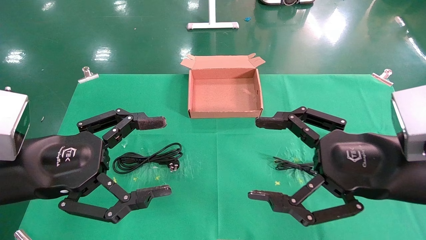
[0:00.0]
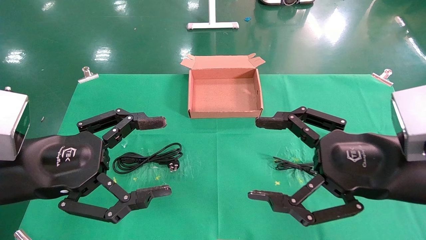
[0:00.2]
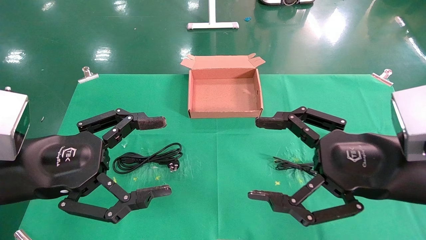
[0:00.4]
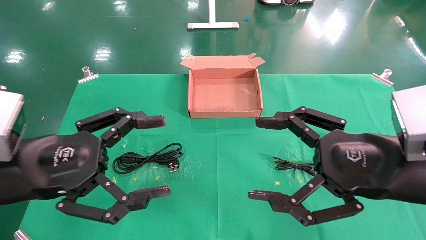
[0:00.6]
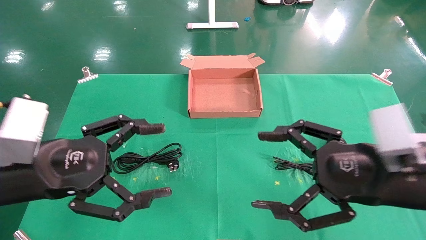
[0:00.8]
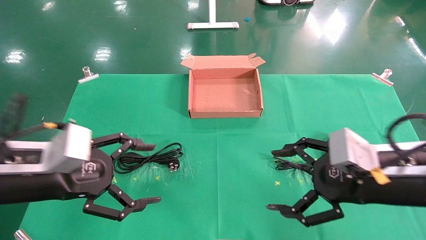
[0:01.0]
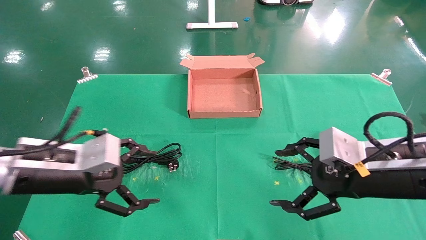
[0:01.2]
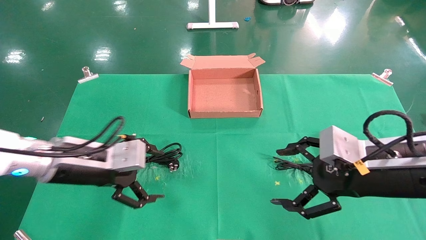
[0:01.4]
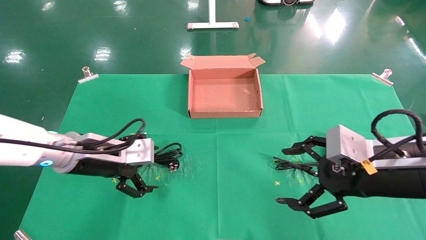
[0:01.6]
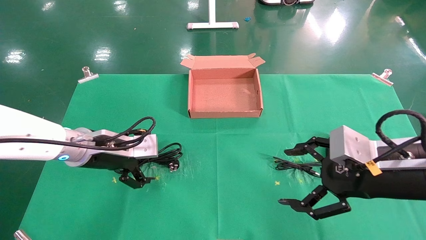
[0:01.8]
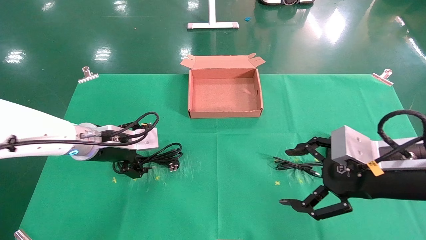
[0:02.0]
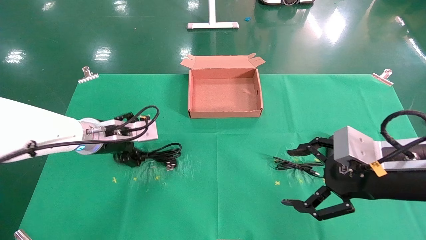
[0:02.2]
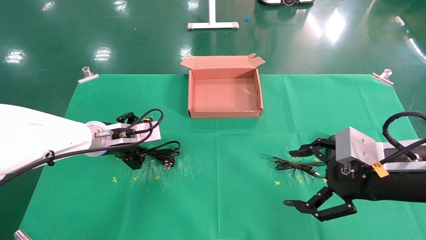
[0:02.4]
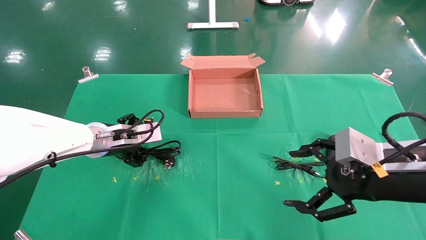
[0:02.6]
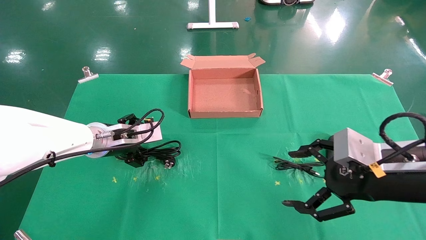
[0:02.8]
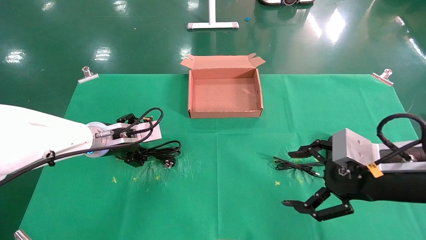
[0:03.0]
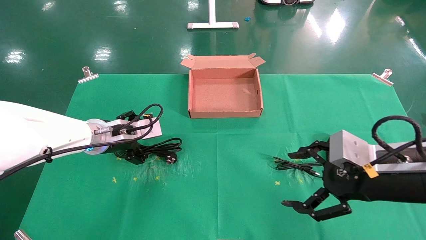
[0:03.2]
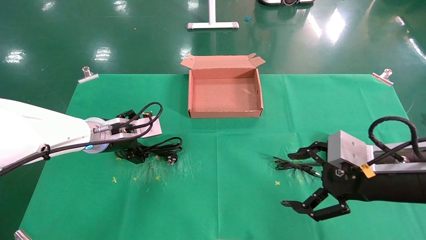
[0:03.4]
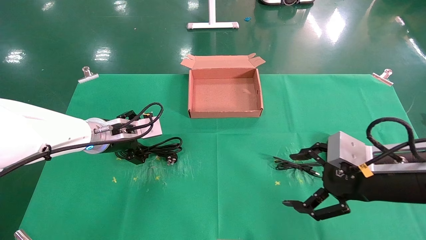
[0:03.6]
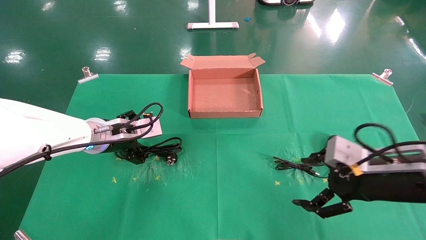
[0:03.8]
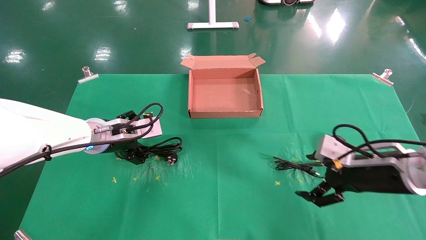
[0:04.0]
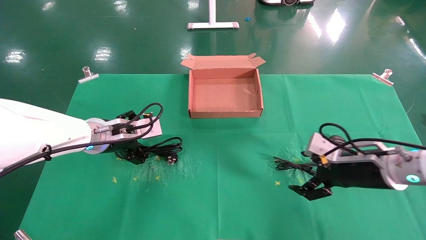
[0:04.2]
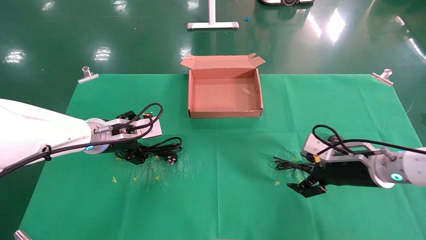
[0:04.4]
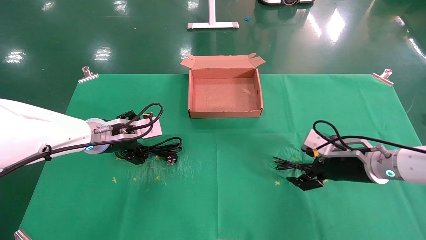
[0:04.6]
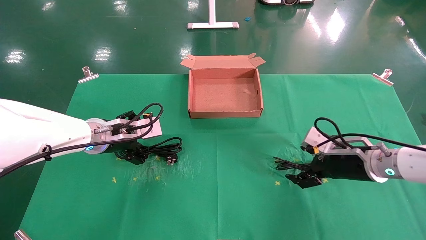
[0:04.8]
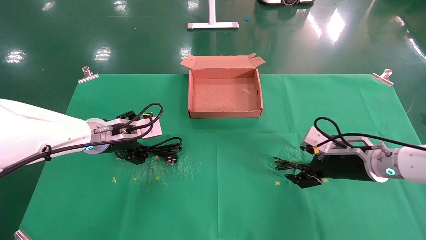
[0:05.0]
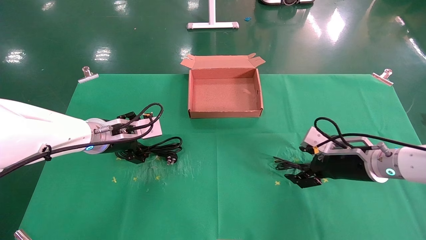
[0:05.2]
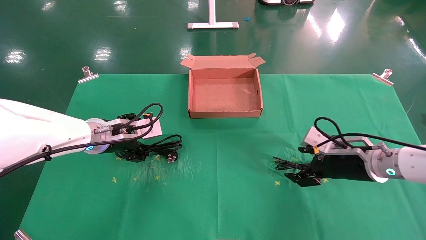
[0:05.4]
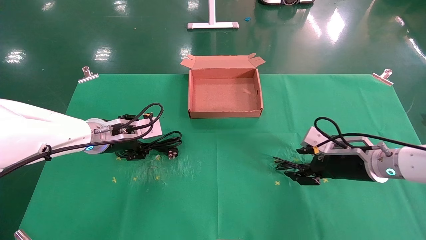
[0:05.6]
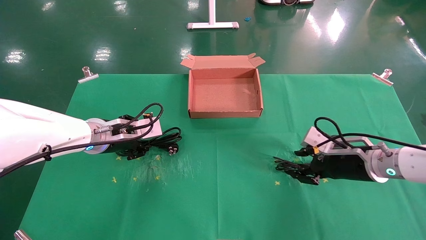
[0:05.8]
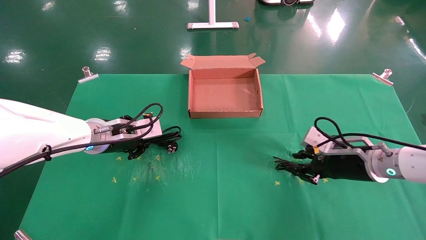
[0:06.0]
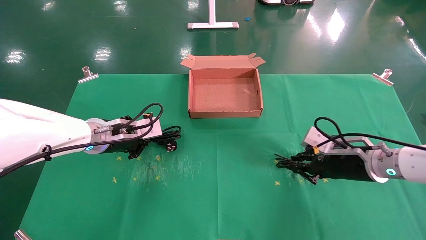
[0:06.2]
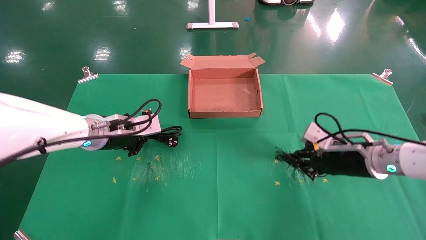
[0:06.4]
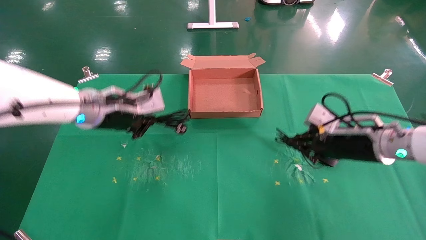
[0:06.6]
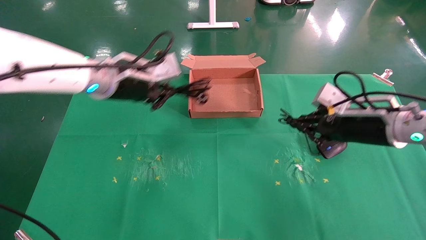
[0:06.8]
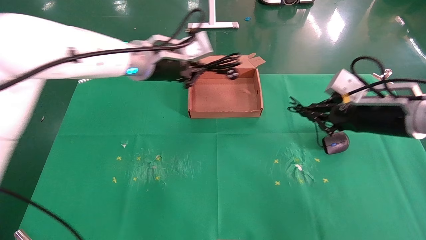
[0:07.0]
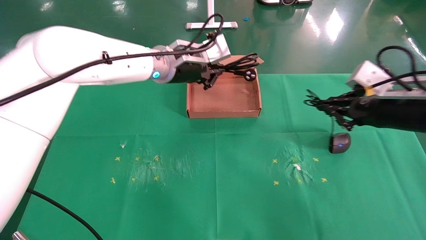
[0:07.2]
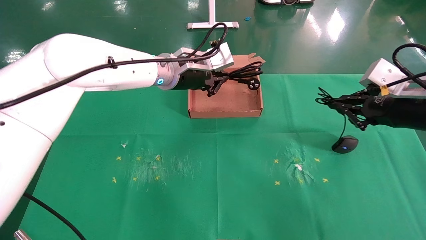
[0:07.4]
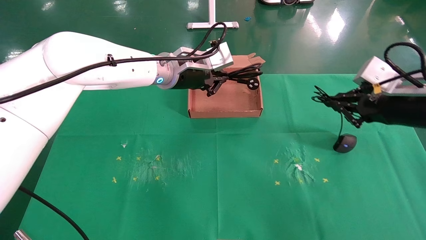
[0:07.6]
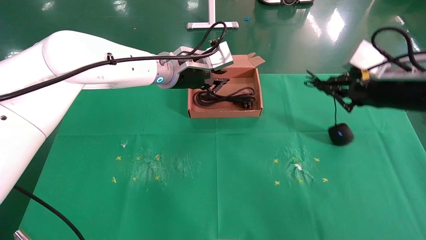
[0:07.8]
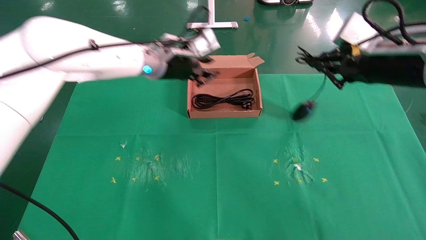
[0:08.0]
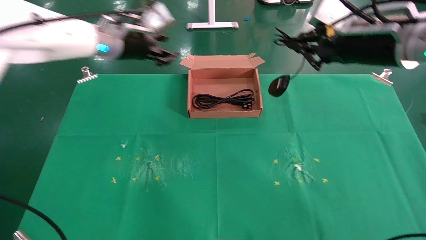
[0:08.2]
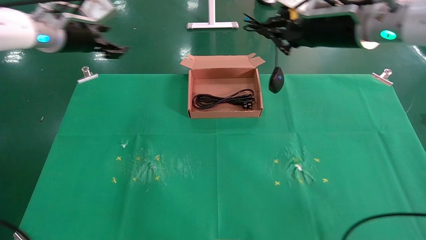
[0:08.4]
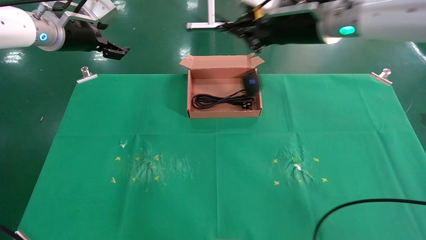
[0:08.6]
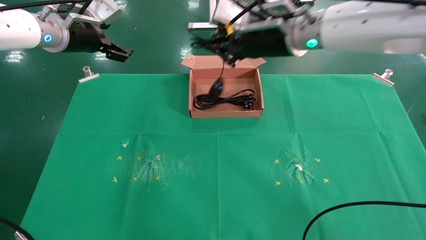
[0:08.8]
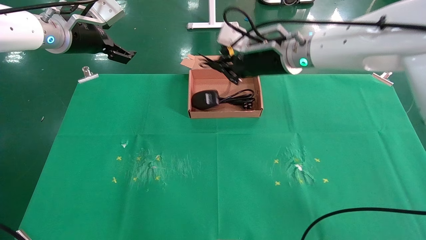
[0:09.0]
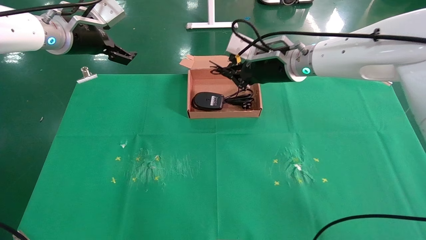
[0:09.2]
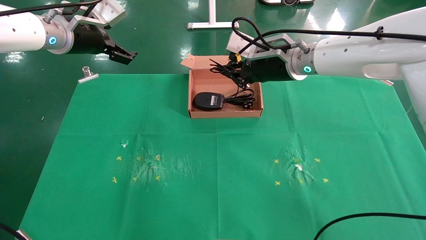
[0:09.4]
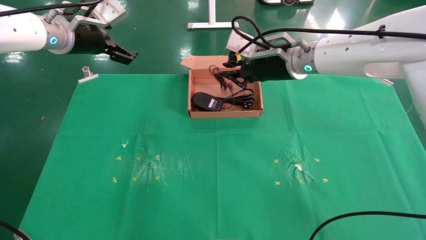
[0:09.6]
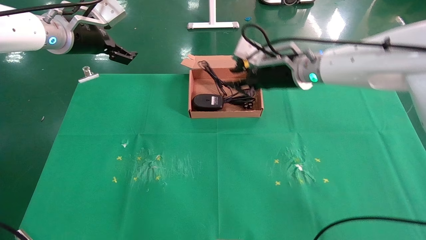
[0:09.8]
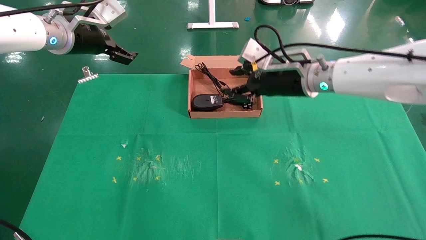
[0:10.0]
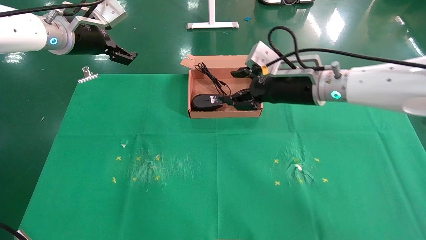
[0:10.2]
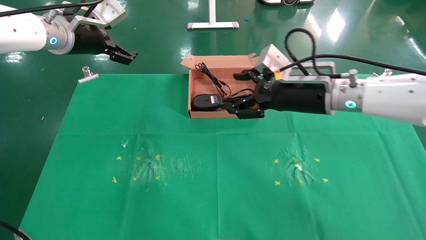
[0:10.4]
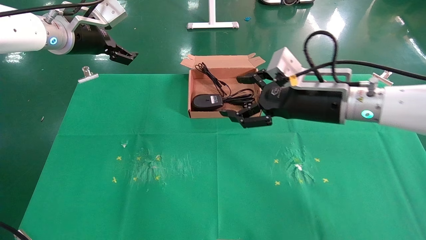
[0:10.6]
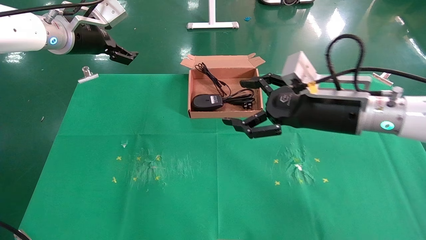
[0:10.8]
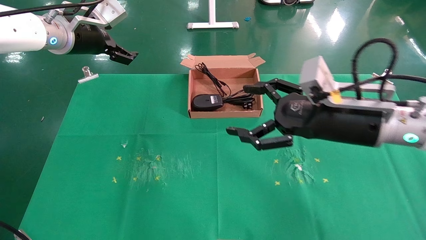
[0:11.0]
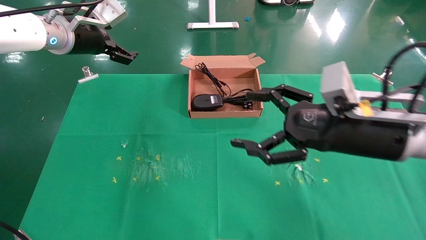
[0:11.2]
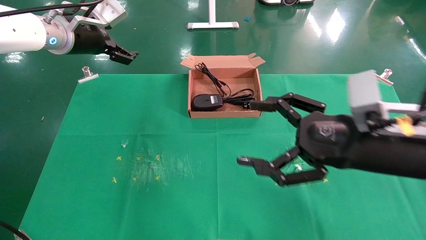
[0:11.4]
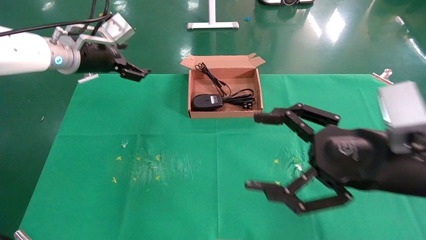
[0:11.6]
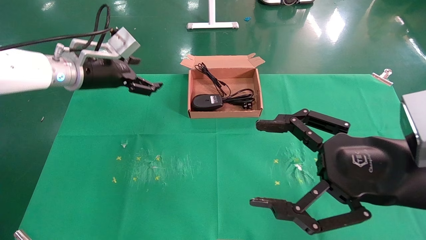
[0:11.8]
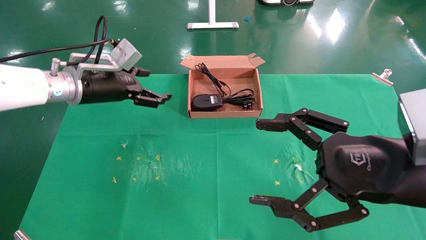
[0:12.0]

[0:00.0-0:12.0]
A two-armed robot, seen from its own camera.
Task of the whole recording: grasp data cable left put into box grasp mouse right put into box.
Step, 0:01.0 to 0:06.2: Simultaneously pick up the mouse and power cord from the accessory packaging area.
Step, 0:06.4 to 0:09.4: Place the mouse and power cord into the box.
0:00.0 to 0:01.6: The right gripper changes place by about 5 cm. Meanwhile the left gripper is displaced forward by roughly 15 cm.
0:01.6 to 0:03.0: The left gripper is displaced forward by roughly 5 cm.
0:03.0 to 0:04.4: The right gripper goes about 10 cm forward and downward.
0:04.4 to 0:06.0: The right gripper closes up. The left gripper closes up.
0:06.0 to 0:07.6: The right gripper is displaced upward by roughly 15 cm, and closes, while the left gripper travels to the right, upward and forward by some 20 cm, and closes up.
0:07.6 to 0:09.0: The right gripper heads to the left and forward, covering some 25 cm, while the left gripper moves to the left, about 20 cm, and opens up.
0:09.0 to 0:10.4: The right gripper shifts roughly 10 cm downward, to the right and backward, and opens.
0:10.4 to 0:12.0: The right gripper moves backward, some 20 cm. Meanwhile the left gripper goes approximately 10 cm downward.

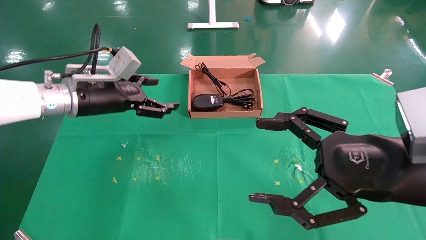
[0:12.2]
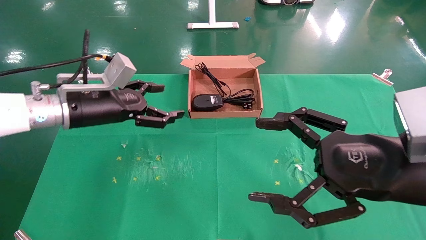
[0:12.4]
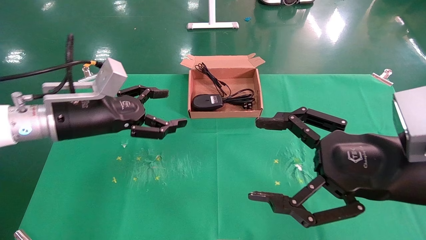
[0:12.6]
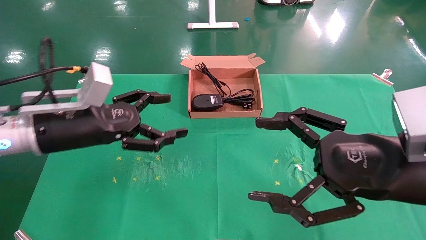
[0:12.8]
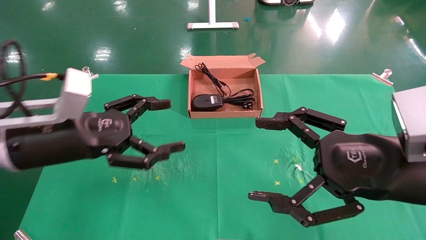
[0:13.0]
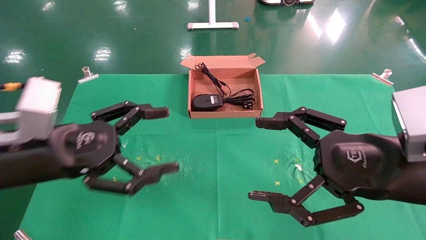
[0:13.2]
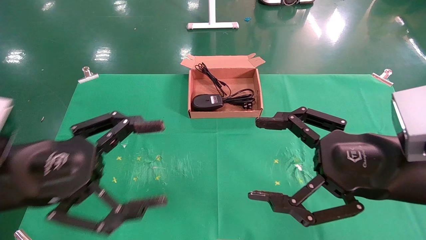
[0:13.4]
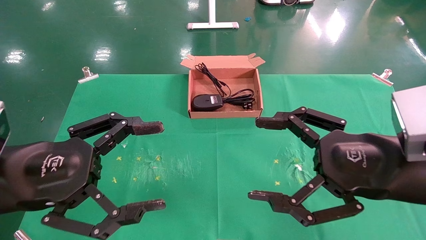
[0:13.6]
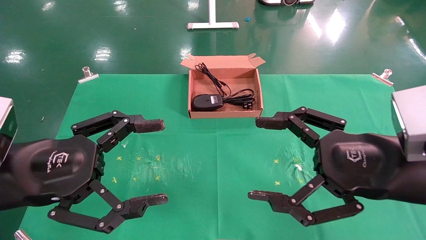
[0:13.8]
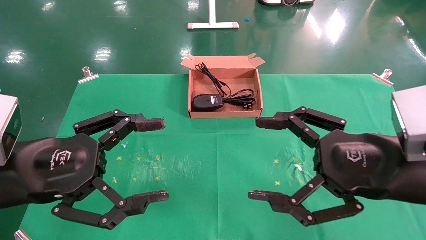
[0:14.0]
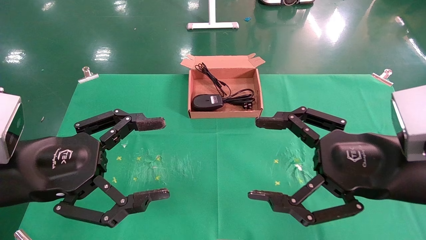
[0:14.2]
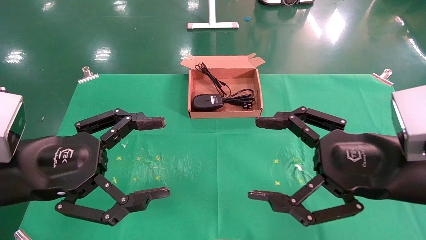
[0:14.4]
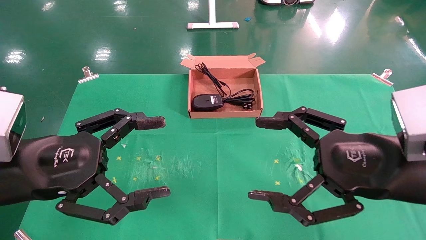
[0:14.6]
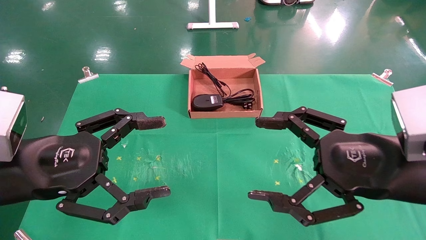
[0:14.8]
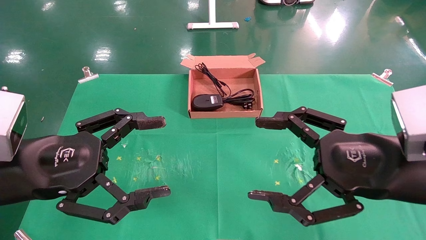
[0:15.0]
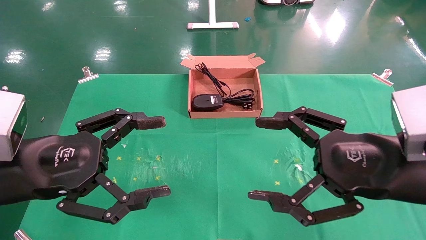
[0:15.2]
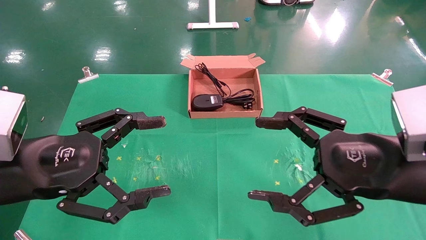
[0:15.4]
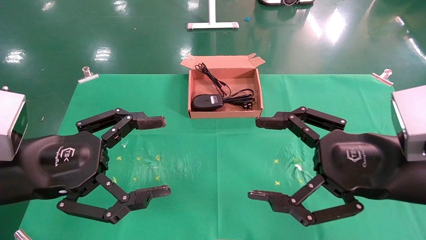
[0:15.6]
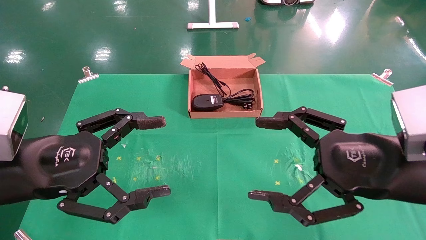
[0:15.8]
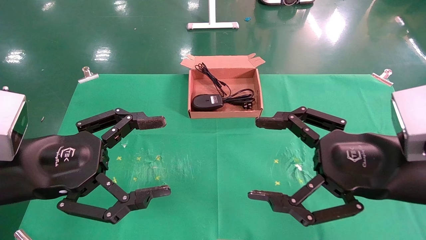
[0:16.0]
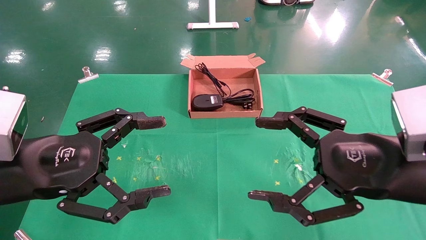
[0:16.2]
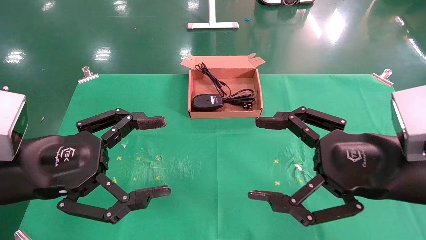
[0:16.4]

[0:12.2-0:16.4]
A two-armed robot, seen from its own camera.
Task of the whole recording: grasp data cable left put into box grasp mouse right put into box.
0:12.2 to 0:13.6: The left gripper is displaced backward by some 20 cm.
0:13.6 to 0:16.4: The two grippers keep their place.
